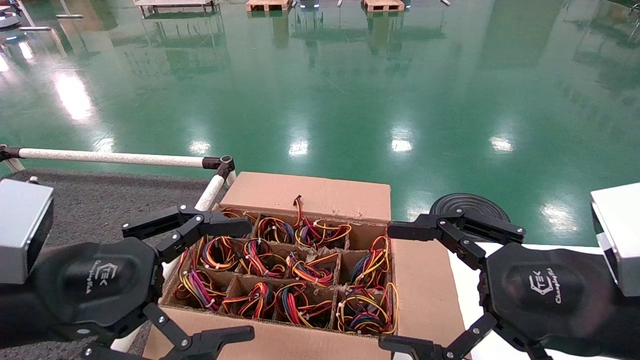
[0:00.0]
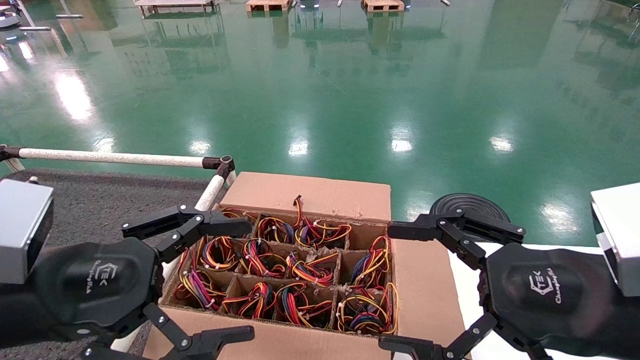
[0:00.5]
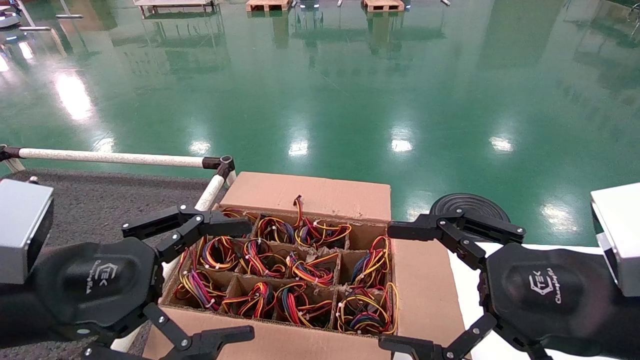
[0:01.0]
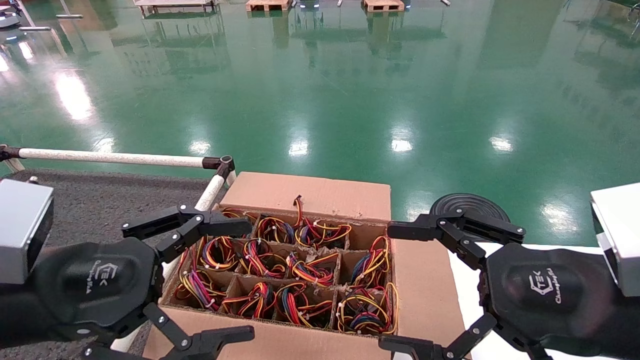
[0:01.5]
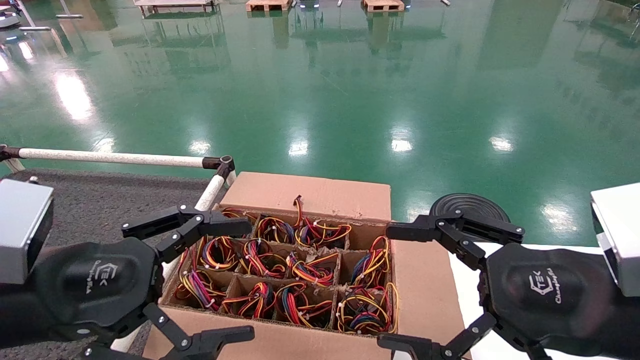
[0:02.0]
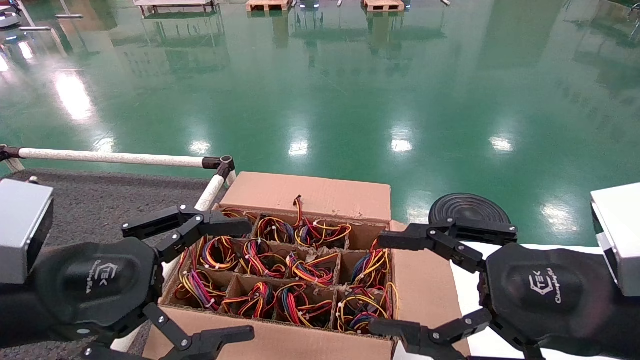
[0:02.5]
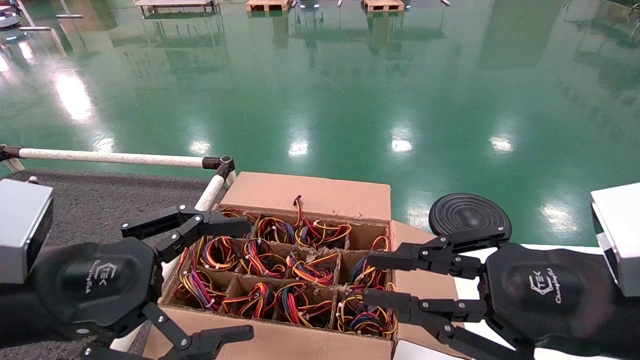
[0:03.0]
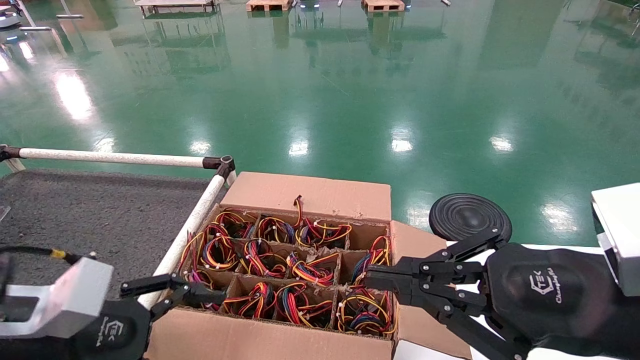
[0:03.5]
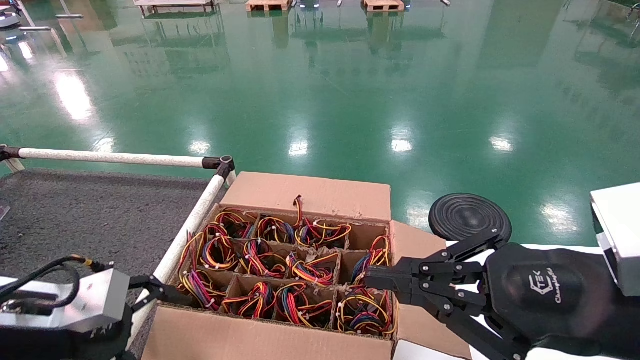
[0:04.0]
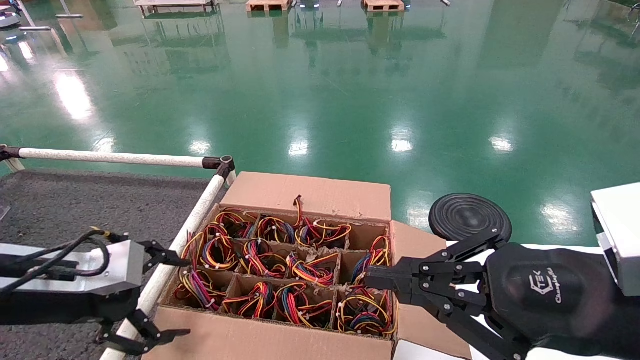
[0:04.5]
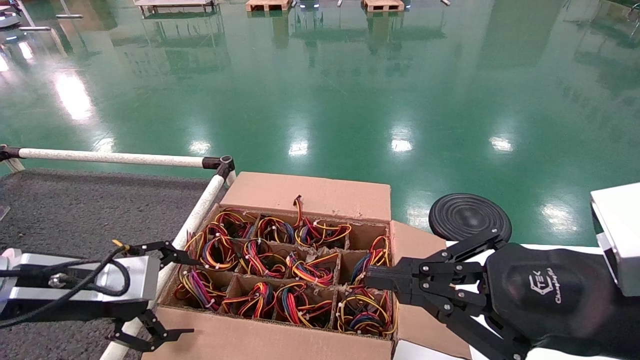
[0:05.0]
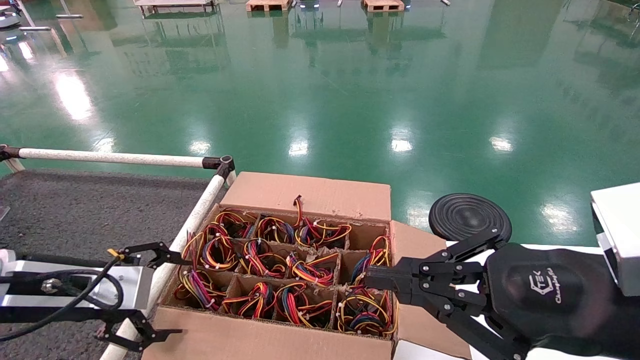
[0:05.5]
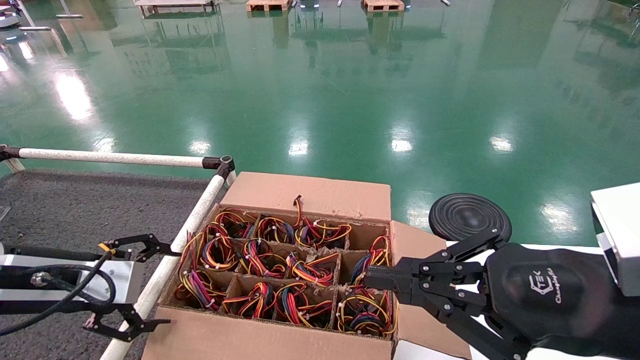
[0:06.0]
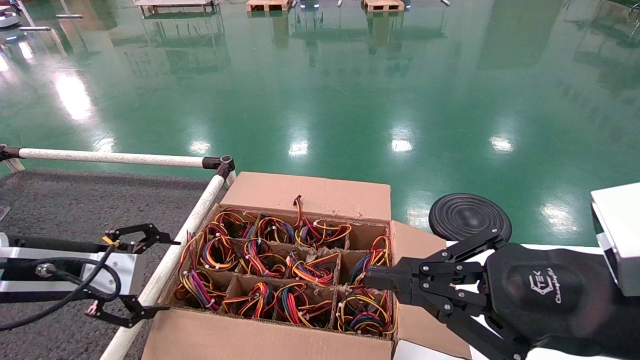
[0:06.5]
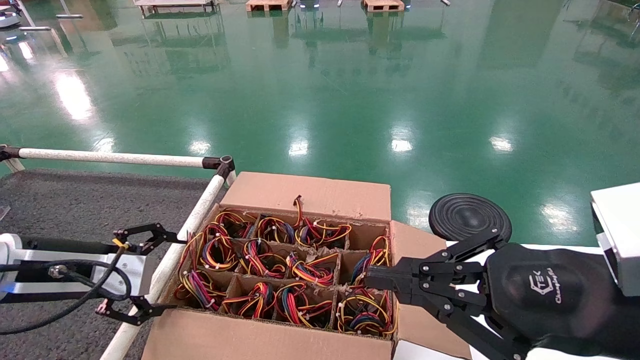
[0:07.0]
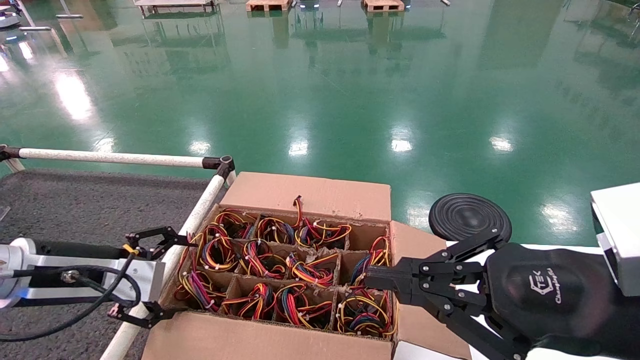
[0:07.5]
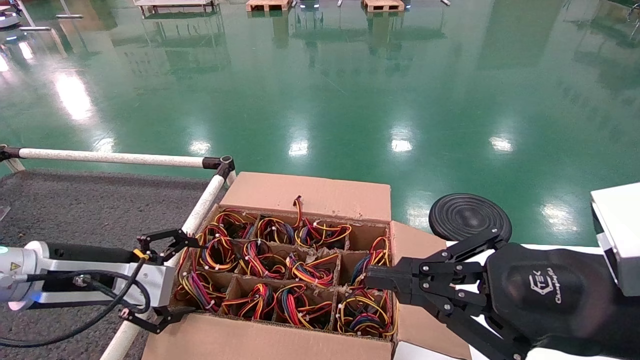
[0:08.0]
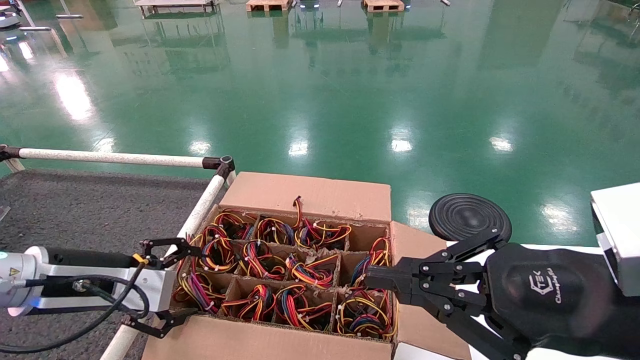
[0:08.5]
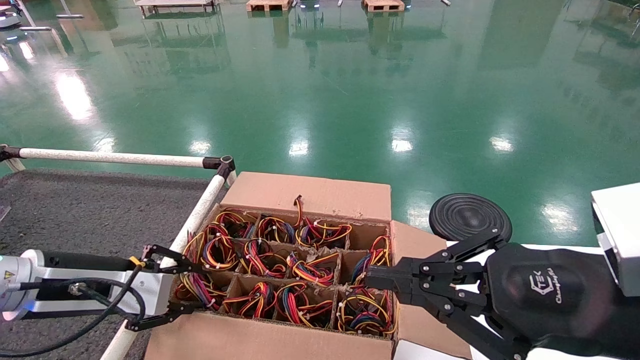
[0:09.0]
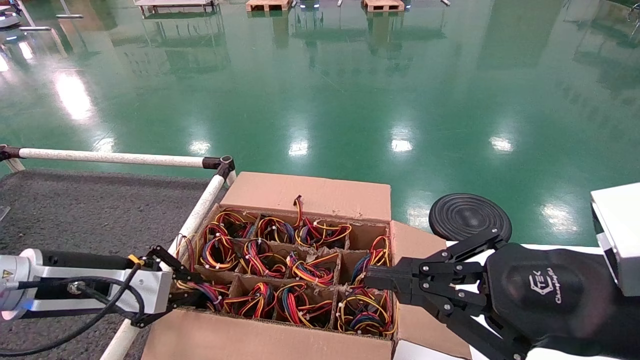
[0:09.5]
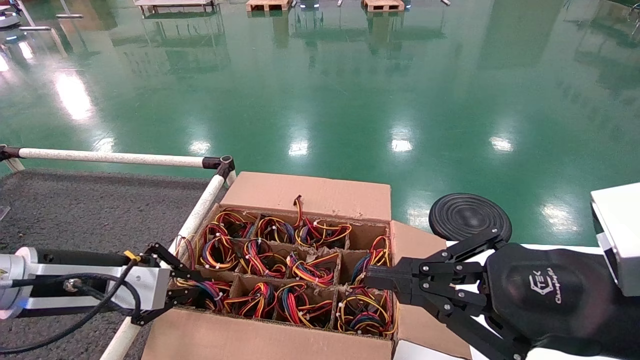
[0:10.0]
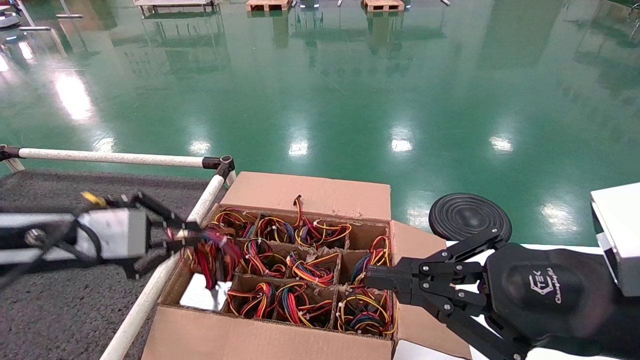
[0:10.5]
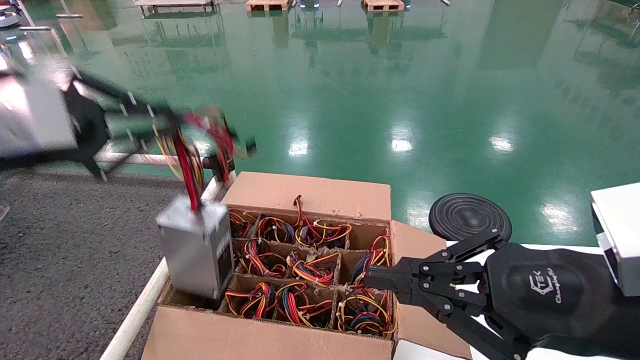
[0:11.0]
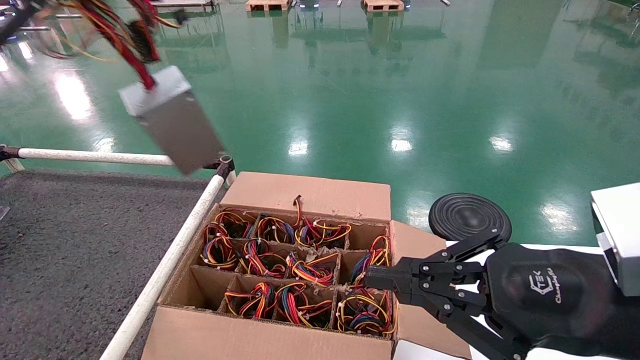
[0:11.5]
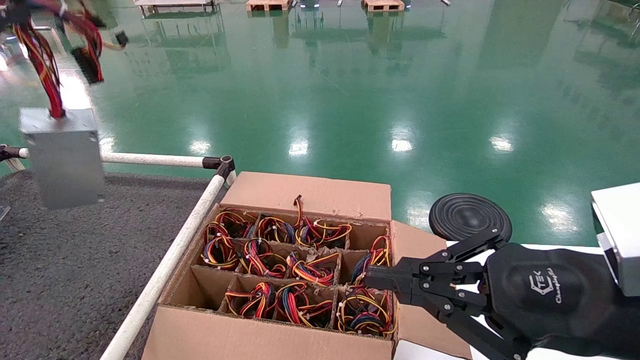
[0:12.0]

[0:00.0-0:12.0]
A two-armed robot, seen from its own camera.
Step, 0:03.5 to 0:09.5: Grab and lift the power supply from the large box.
0:00.0 to 0:02.0: The two grippers keep their place.
0:02.0 to 0:04.0: The right gripper closes. The left gripper heads to the left, covering some 5 cm.
0:06.0 to 0:08.0: The grippers stay close to where they were, moving slightly.
0:08.0 to 0:10.0: The left gripper closes.
0:10.0 to 0:12.0: The left gripper shifts approximately 25 cm upward and to the left.

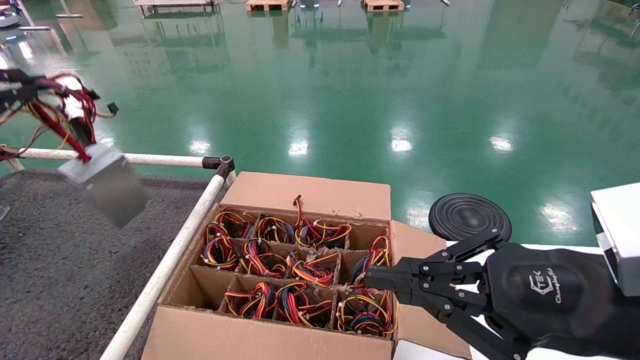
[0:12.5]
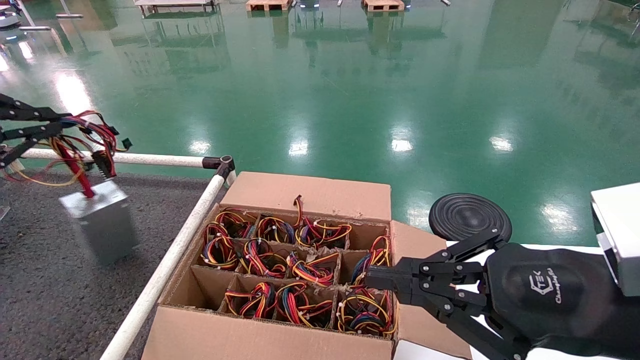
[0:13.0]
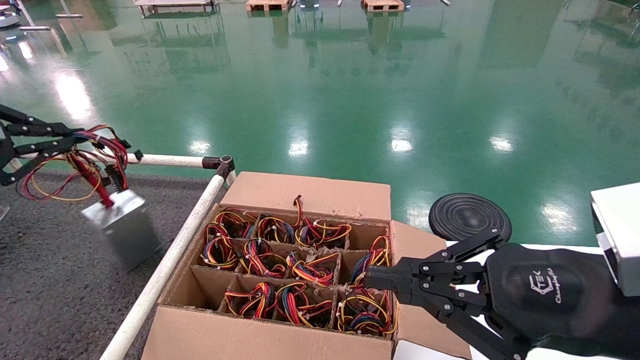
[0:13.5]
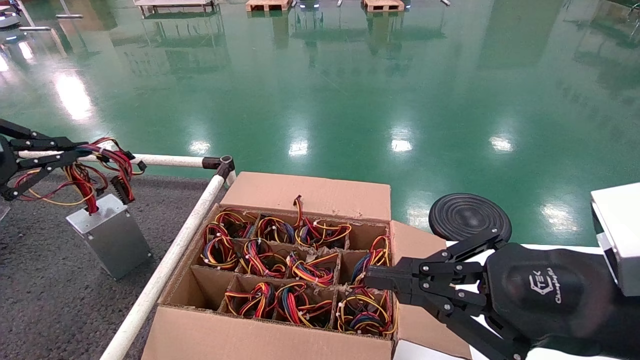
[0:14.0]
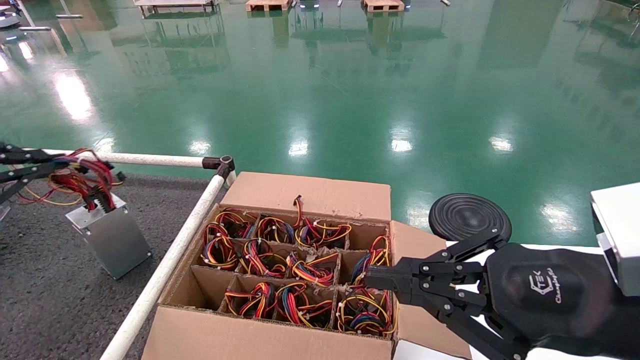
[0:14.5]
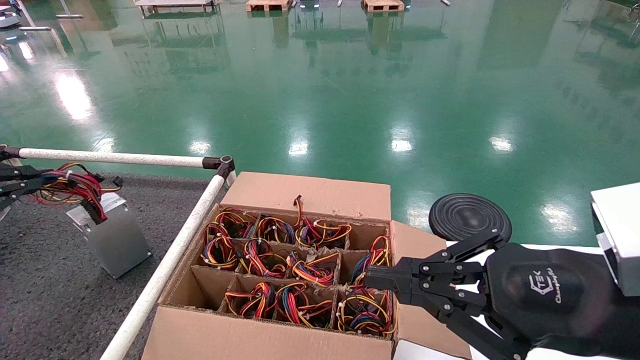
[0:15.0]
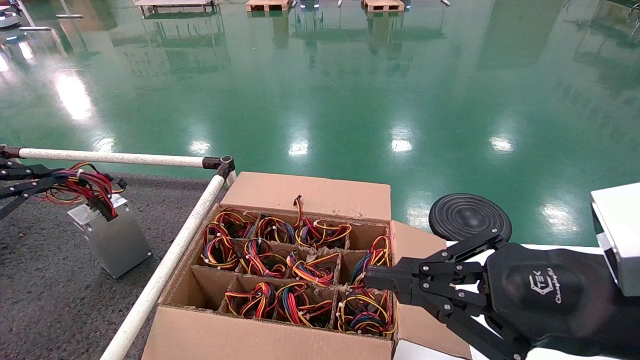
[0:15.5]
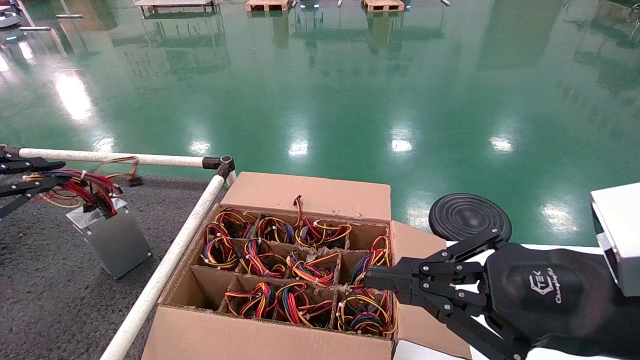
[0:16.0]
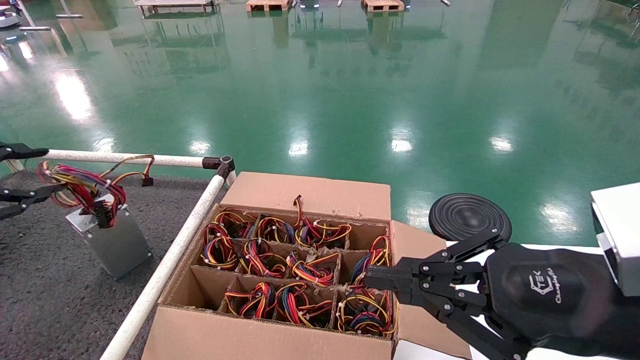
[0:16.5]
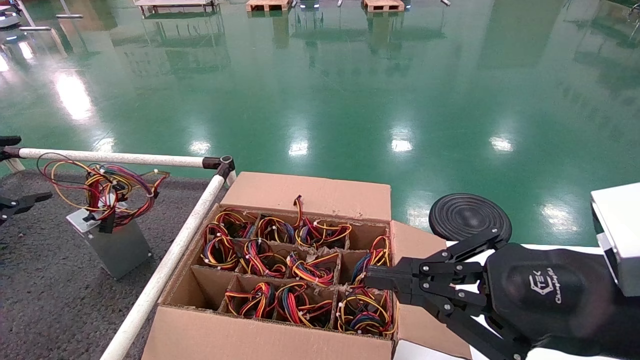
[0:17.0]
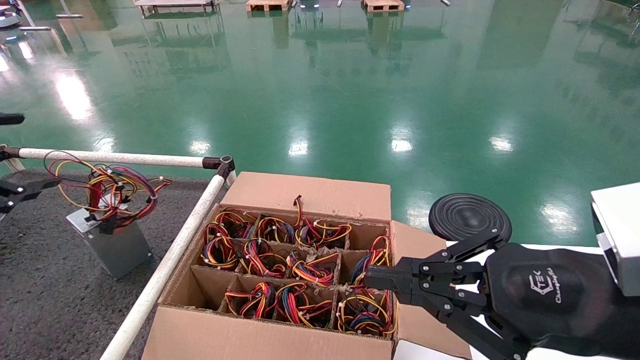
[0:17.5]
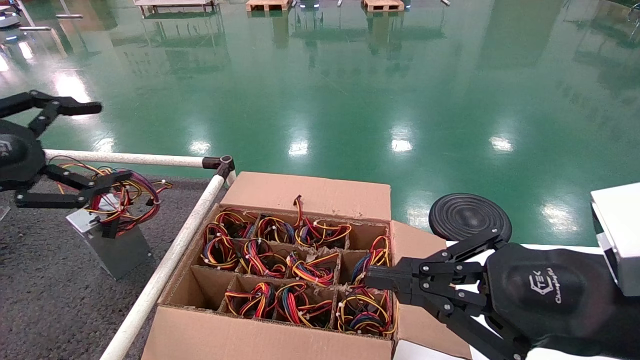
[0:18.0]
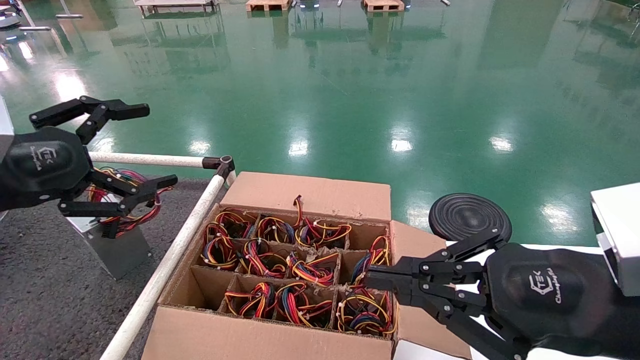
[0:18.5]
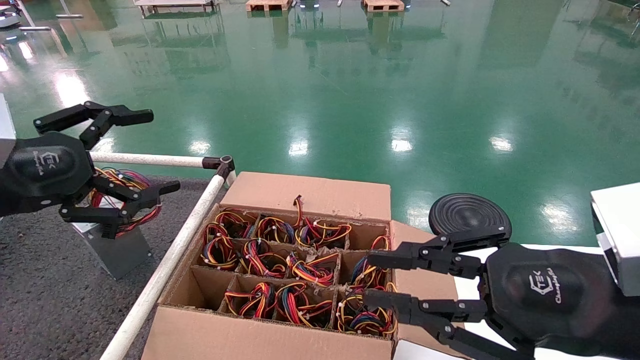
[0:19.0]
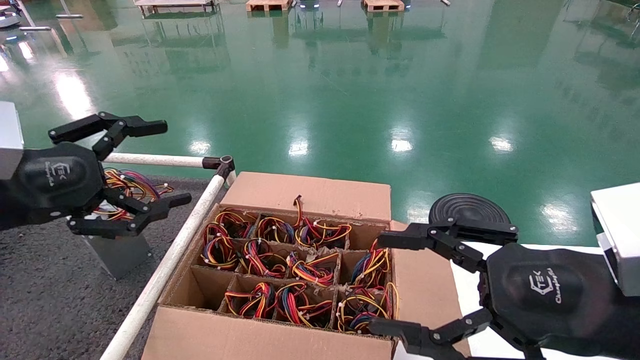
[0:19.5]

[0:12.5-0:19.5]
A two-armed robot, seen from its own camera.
Step, 0:12.5 to 0:16.0: Place the power supply on the operating table.
0:12.5 to 0:14.5: The left gripper heads downward, covering roughly 10 cm.
0:14.5 to 0:16.0: There are only small adjustments of the grippers.
0:16.0 to 0:17.5: The left gripper opens.
0:17.5 to 0:19.5: The right gripper opens its fingers; the left gripper moves to the right, approximately 10 cm.
